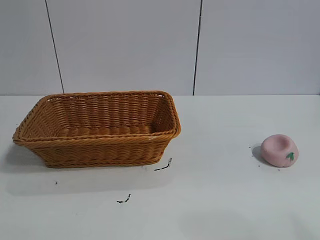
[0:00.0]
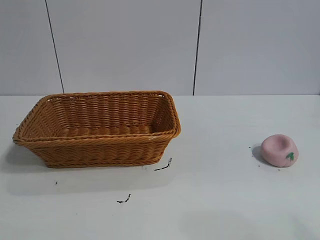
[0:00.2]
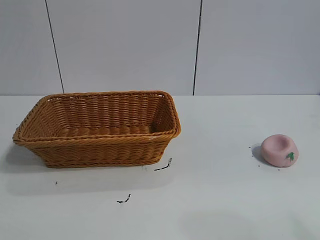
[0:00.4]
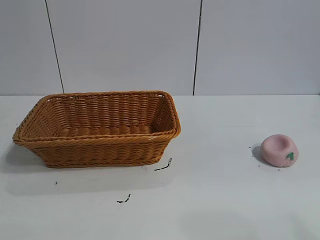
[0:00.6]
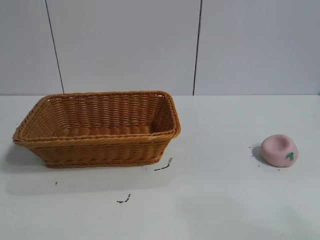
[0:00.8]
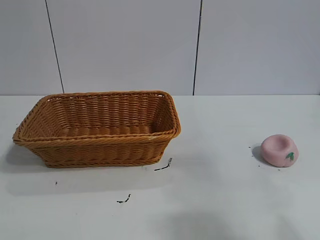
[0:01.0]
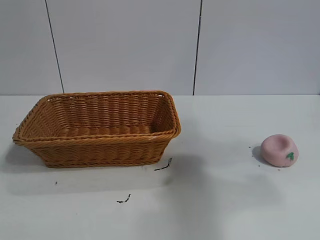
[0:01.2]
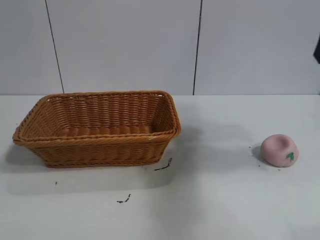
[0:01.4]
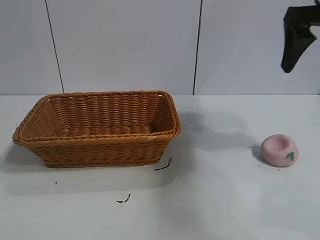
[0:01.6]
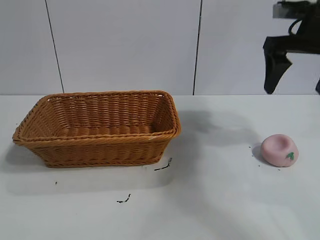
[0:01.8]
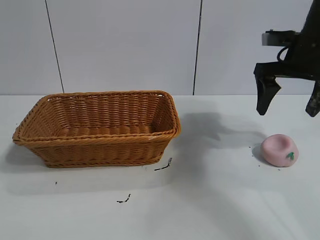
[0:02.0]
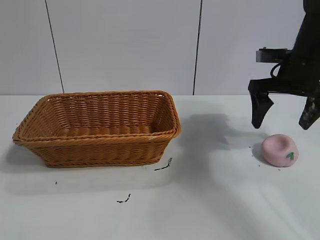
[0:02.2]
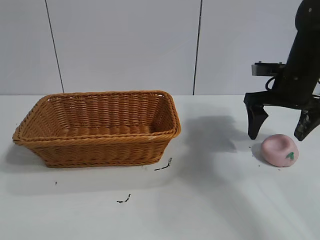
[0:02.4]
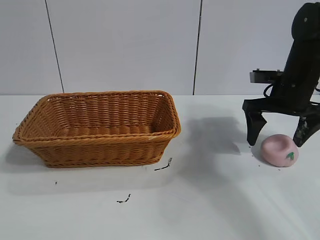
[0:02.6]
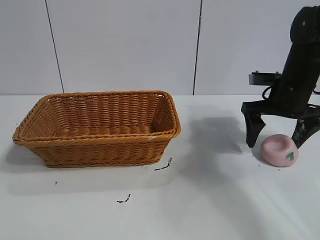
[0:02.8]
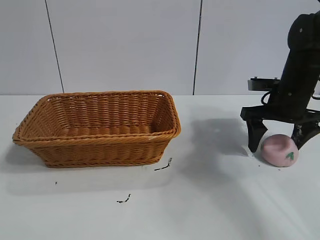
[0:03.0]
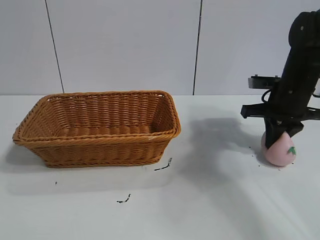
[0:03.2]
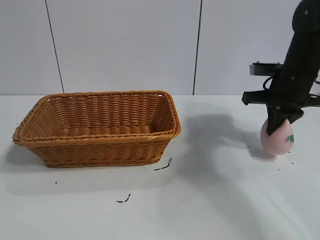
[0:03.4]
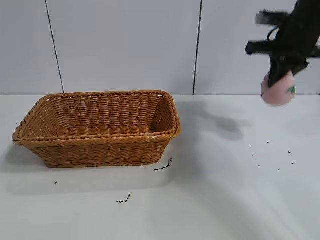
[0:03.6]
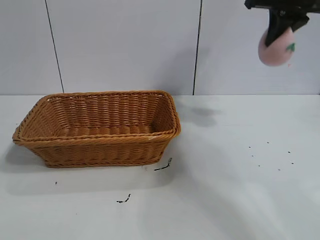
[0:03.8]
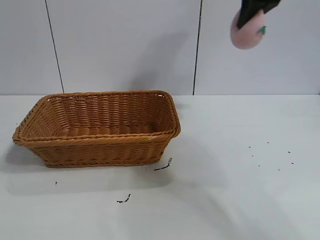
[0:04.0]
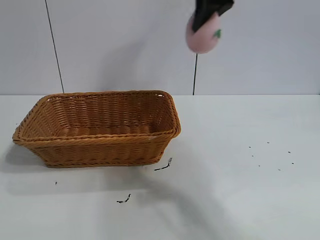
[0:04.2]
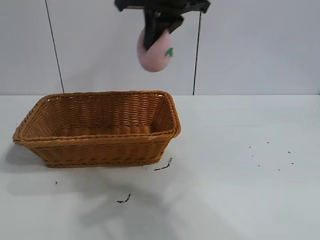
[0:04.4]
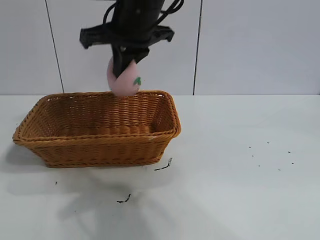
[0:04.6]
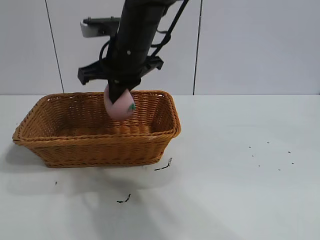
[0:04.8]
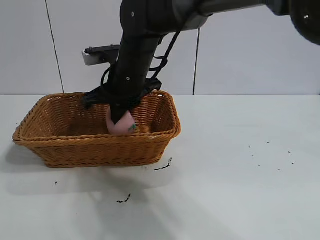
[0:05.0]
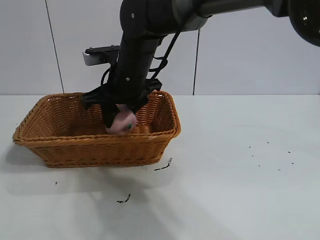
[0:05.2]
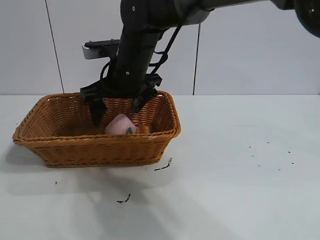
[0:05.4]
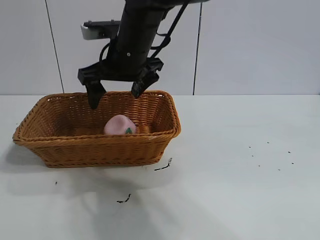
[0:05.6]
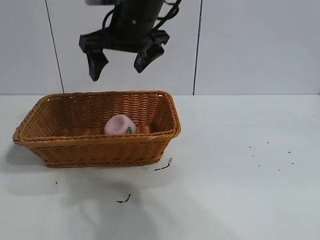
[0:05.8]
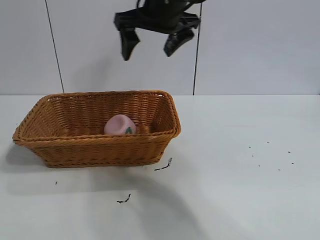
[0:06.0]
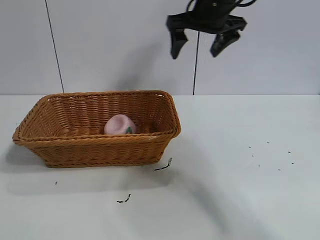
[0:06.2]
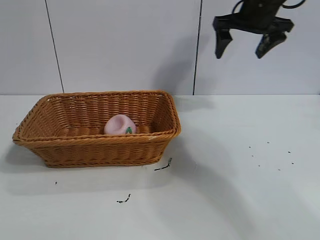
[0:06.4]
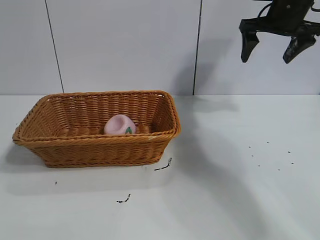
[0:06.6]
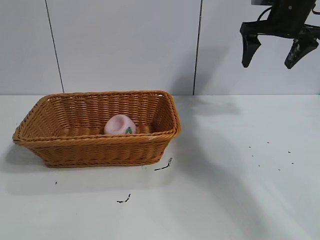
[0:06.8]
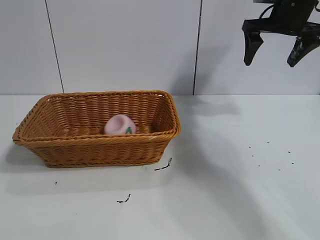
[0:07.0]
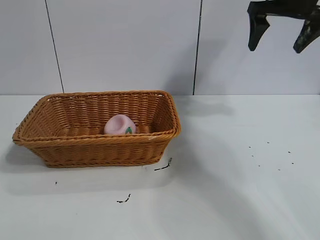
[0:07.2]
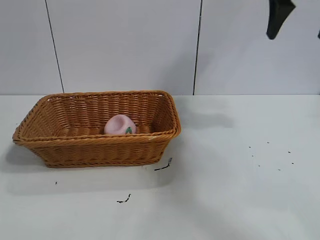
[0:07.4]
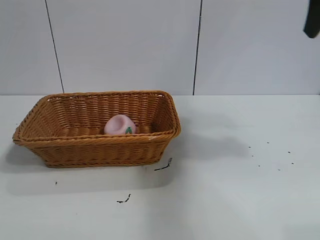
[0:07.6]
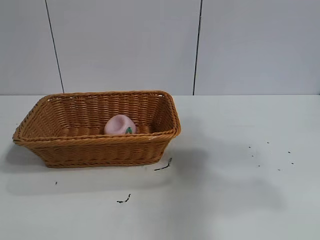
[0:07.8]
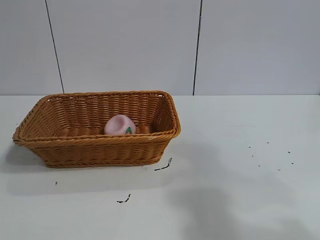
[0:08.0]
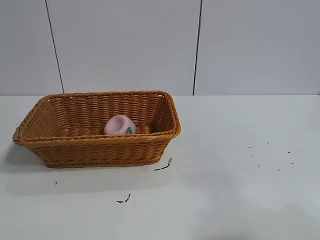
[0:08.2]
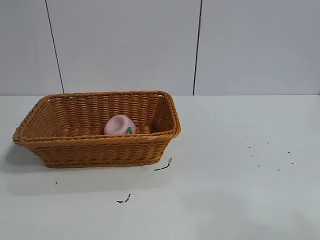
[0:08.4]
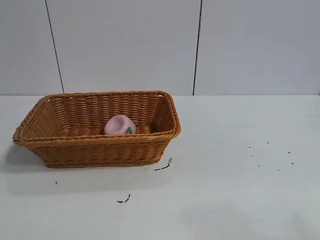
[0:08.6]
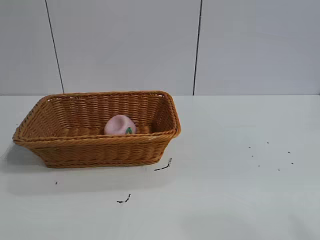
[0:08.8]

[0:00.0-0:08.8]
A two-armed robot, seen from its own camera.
Task of the whole recording: pick up the peach and put it into the basket.
Step, 0:00.8 to 0:03.2: Grasp the peach with right gripper.
Step, 0:03.6 to 0:05.6: Place the peach in the basket with right gripper.
